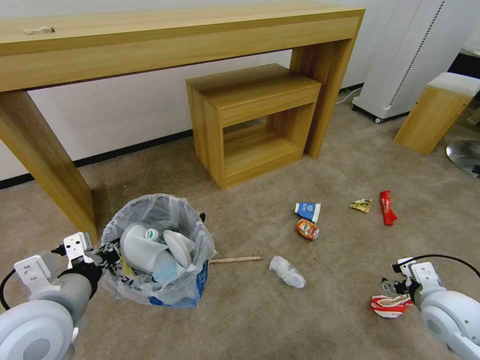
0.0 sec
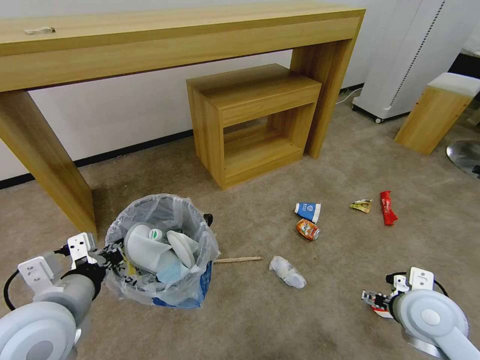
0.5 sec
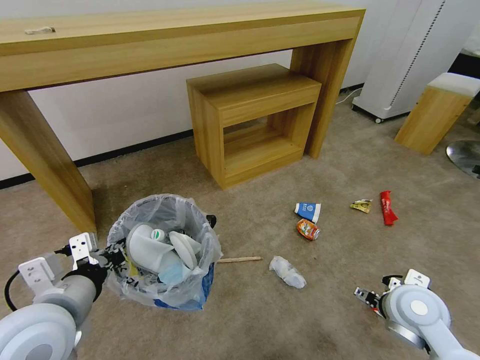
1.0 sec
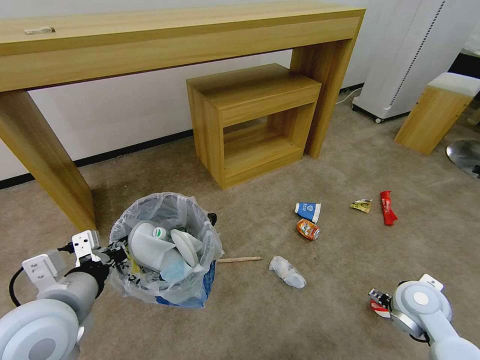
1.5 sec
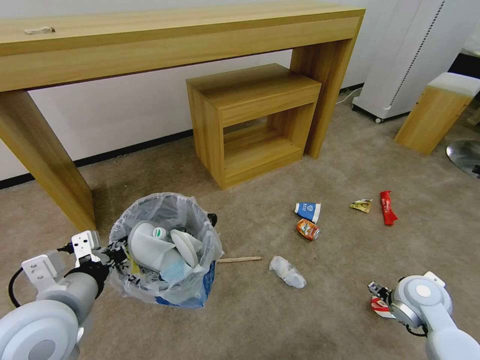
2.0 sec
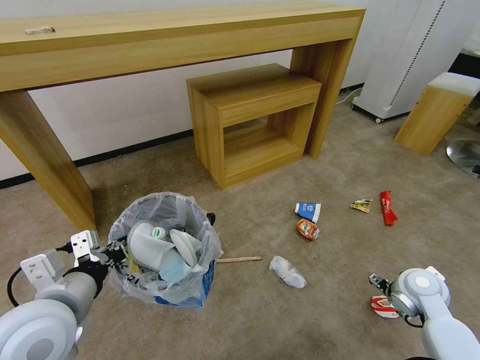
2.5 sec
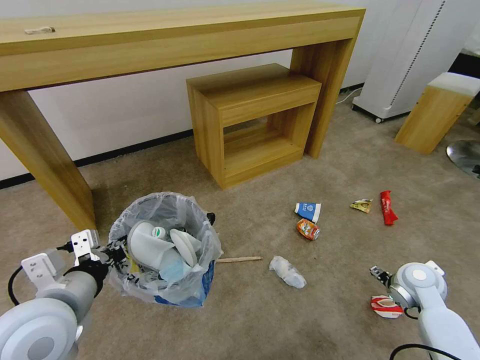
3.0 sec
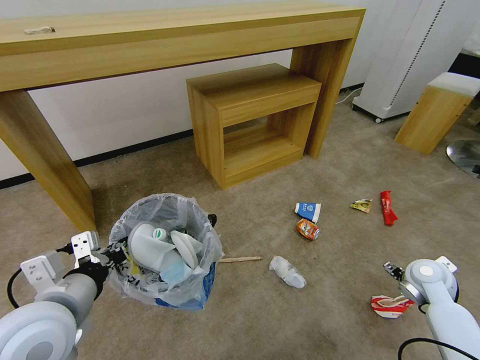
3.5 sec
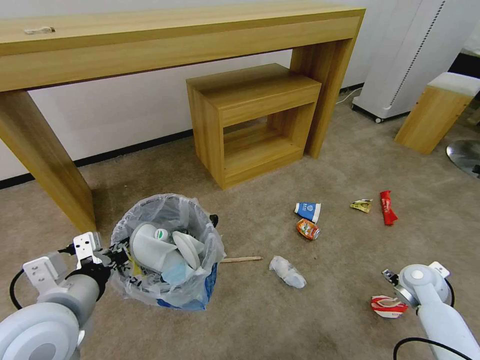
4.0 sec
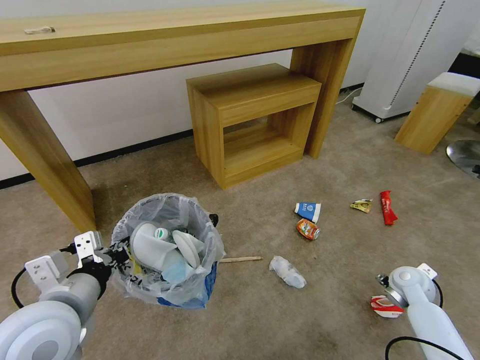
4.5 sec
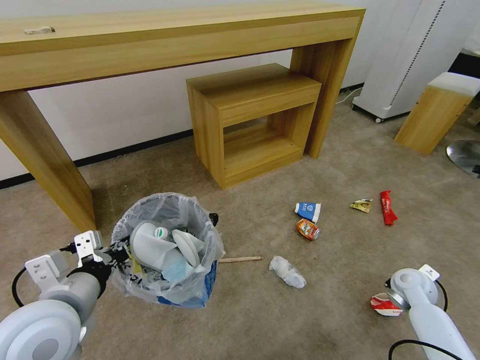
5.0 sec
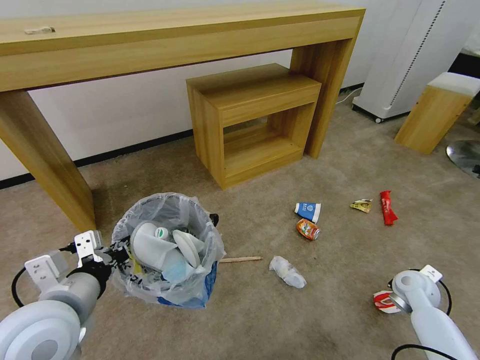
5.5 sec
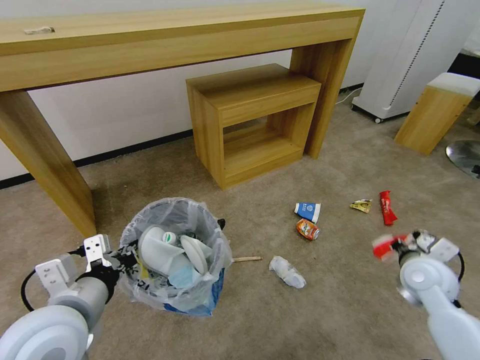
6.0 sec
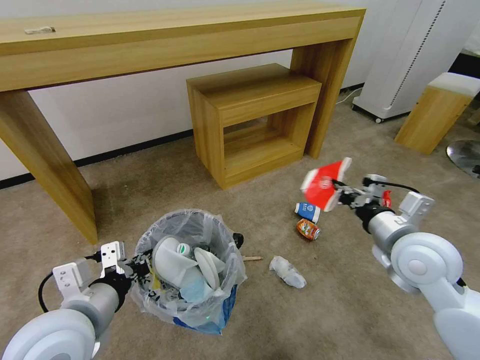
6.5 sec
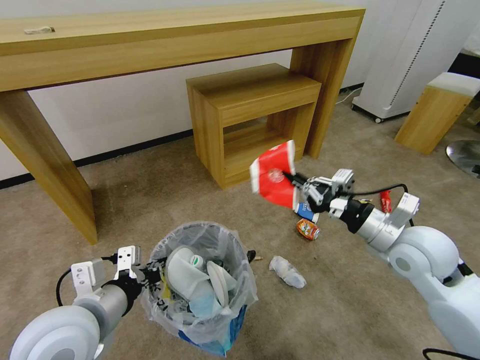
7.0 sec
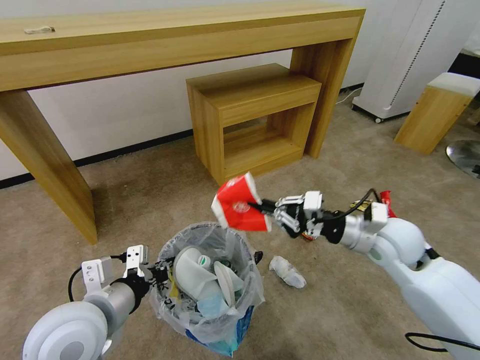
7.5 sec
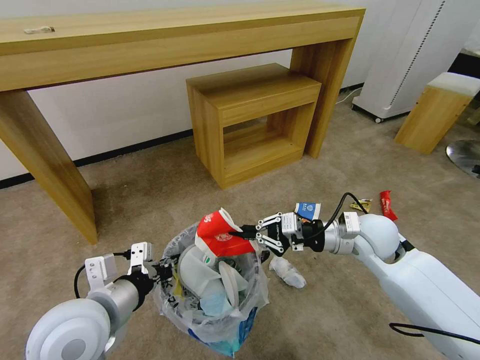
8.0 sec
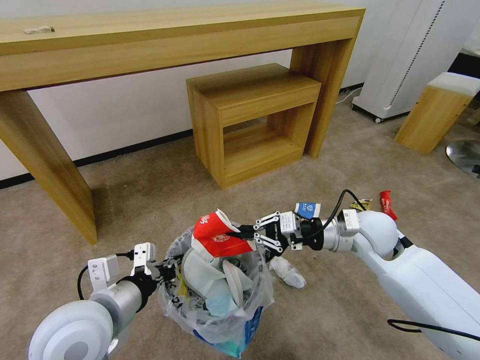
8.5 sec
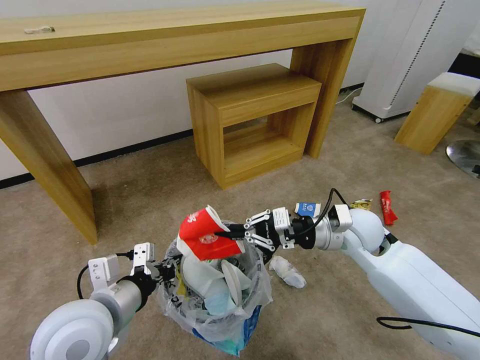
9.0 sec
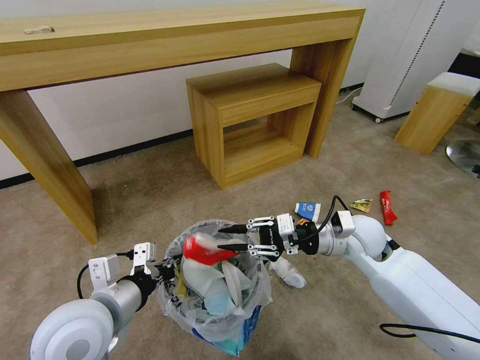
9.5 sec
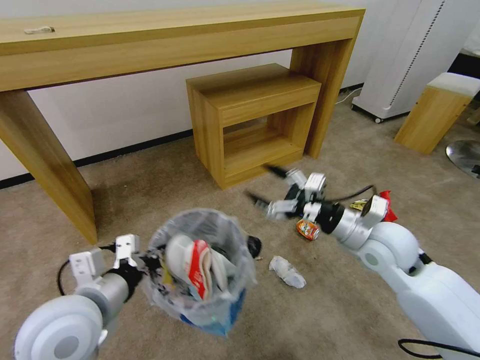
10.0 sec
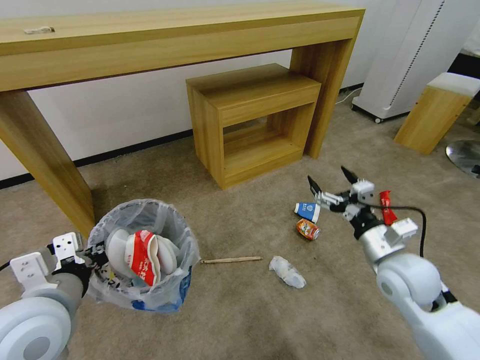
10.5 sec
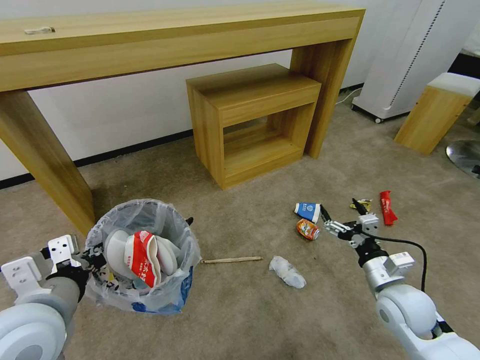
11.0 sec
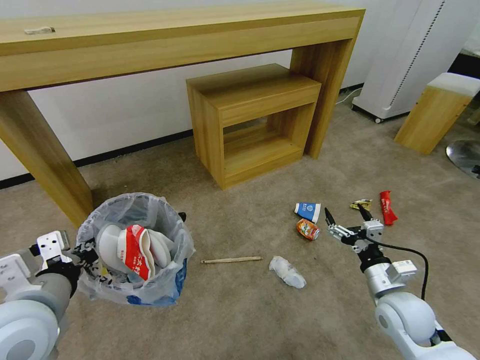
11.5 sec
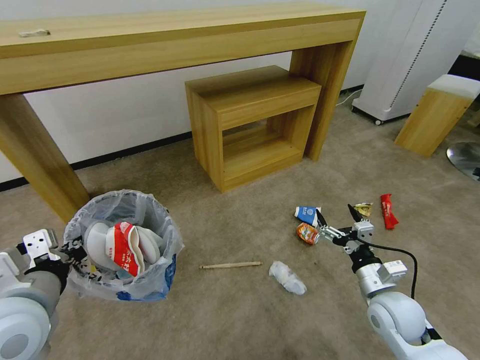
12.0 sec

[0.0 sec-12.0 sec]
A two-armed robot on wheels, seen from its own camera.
Task of the whole recording: Pick up the trash bin and place the garbage on the floor into it.
0.0 sec to 2.0 sec: The right gripper ends up roughly 5 cm from where it was.
2.0 sec to 4.0 sec: The right gripper heads to the right and forward, covering roughly 10 cm.
4.0 sec to 6.0 sec: The right gripper heads upward and to the left, covering about 10 cm, and closes.
6.0 sec to 8.0 sec: The right gripper moves to the left, upward and forward, about 15 cm.
8.0 sec to 10.0 sec: The right gripper opens.
10.0 sec to 12.0 sec: The right gripper heads downward and backward, covering some 15 cm. Meanwhile the left gripper shifts some 5 cm to the left.

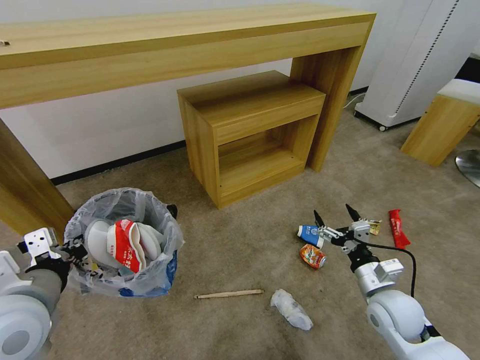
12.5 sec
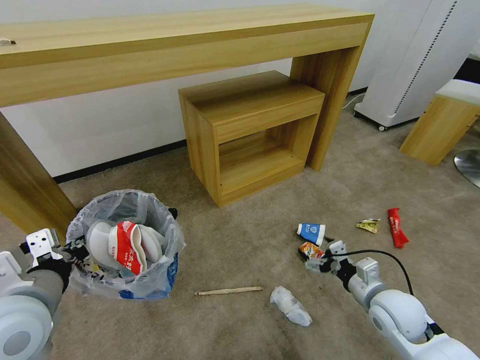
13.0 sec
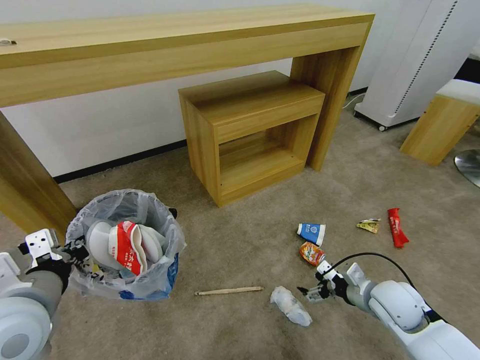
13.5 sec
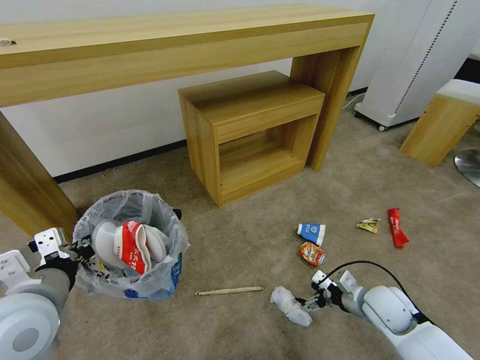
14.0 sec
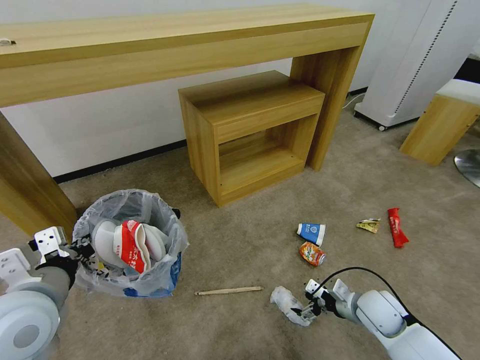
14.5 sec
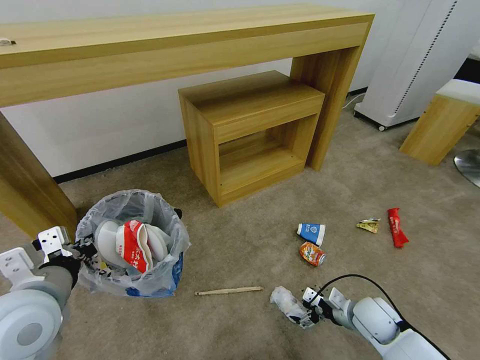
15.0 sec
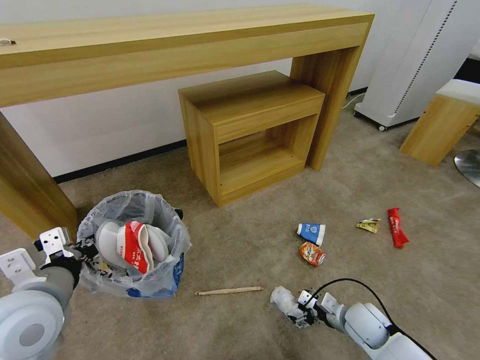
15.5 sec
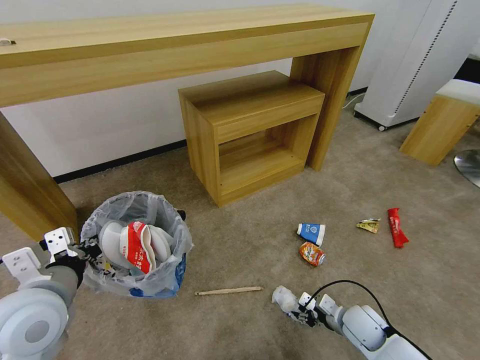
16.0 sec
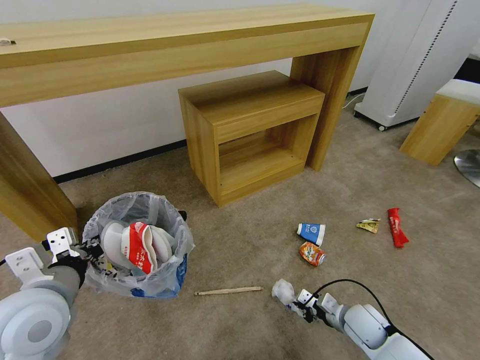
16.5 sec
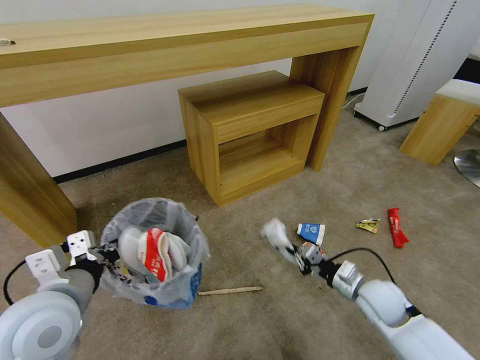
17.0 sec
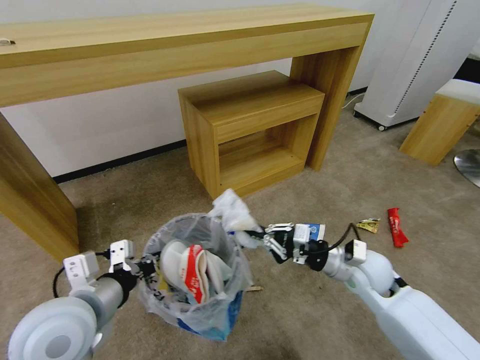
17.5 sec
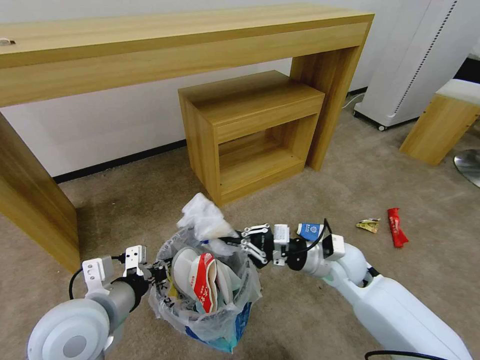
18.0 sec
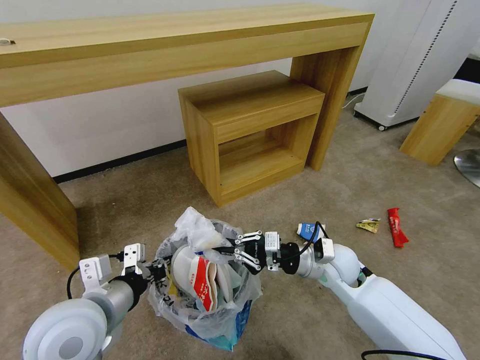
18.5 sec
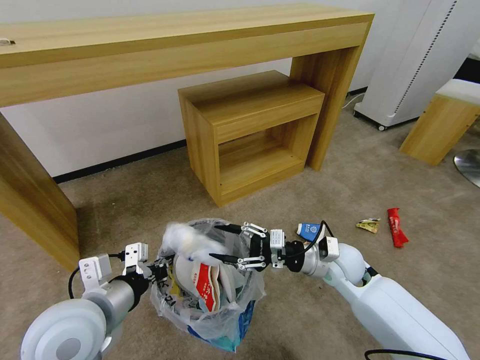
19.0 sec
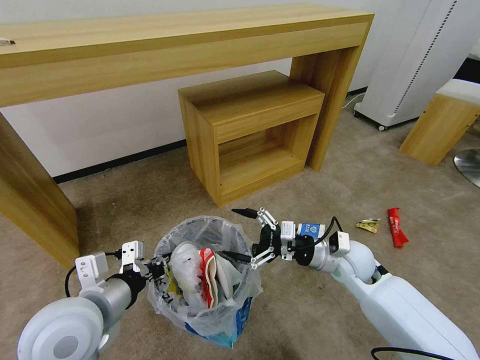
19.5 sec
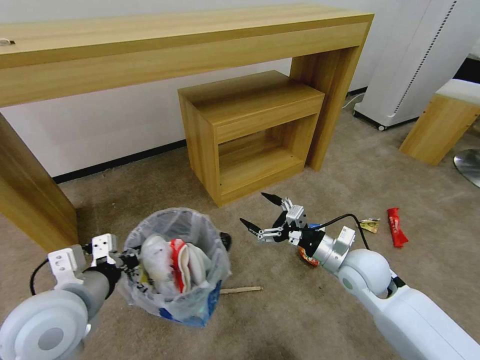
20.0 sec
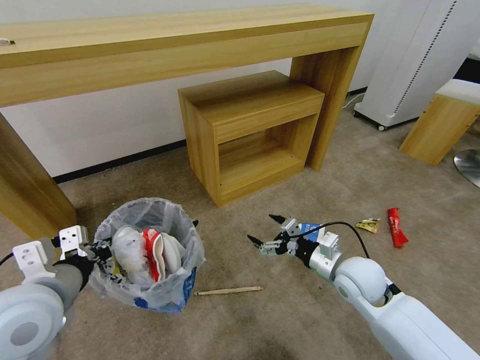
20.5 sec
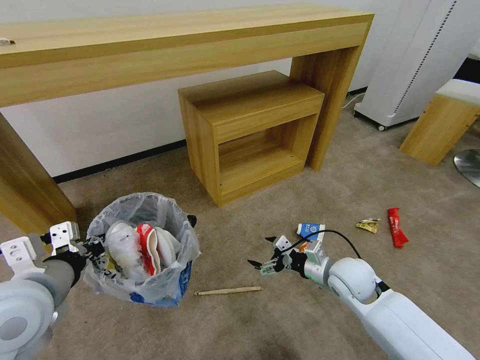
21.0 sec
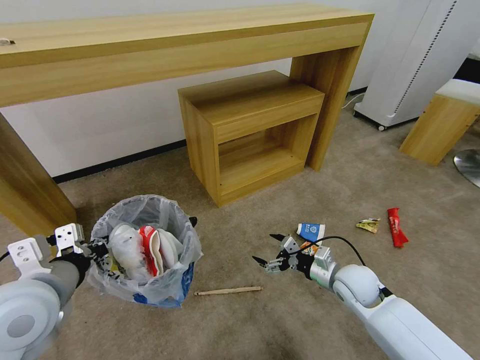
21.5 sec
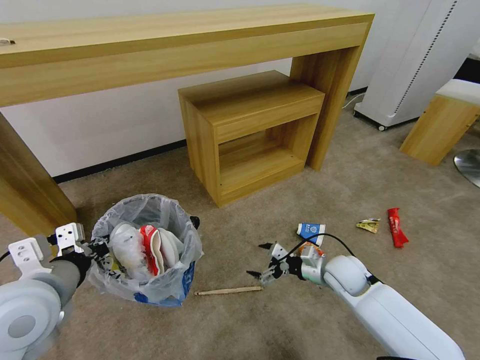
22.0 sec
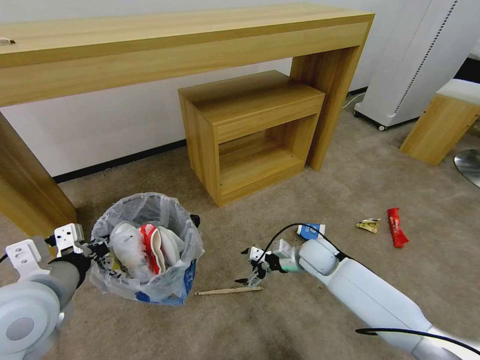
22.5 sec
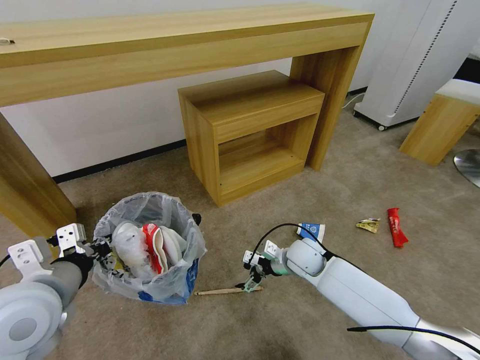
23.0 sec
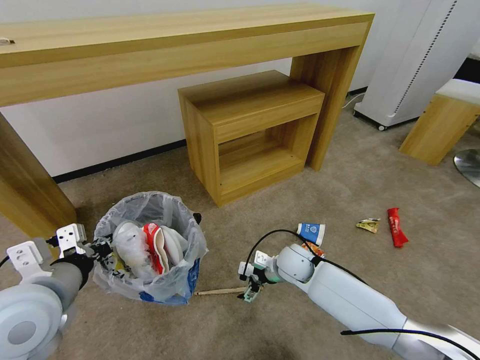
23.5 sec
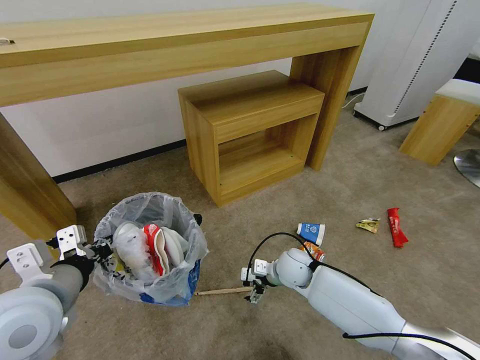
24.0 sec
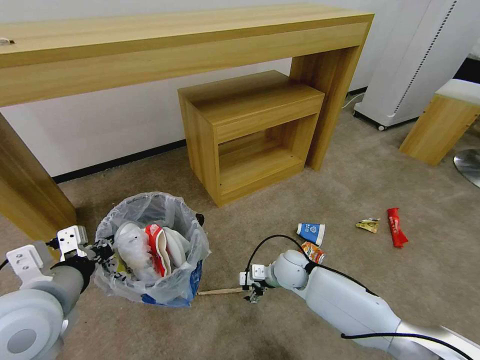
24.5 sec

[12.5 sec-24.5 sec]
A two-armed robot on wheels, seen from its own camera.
Task of the whole recording: Pick up the trash bin and place the garbage on the floor into it.
12.5 sec to 14.5 sec: The right gripper heads downward, covering approximately 5 cm.
14.5 sec to 16.5 sec: The right gripper shifts about 5 cm downward, and closes its fingers.
16.5 sec to 18.5 sec: The left gripper shifts some 5 cm to the right; the right gripper goes about 20 cm upward, to the left and forward.
18.5 sec to 20.5 sec: The left gripper is displaced to the left by approximately 5 cm, while the right gripper shifts by approximately 5 cm, and opens up.
20.5 sec to 22.5 sec: The right gripper heads forward and downward, covering about 10 cm.
22.5 sec to 24.5 sec: The right gripper moves to the left, roughly 5 cm.

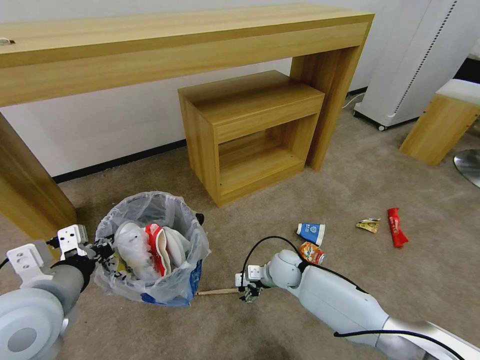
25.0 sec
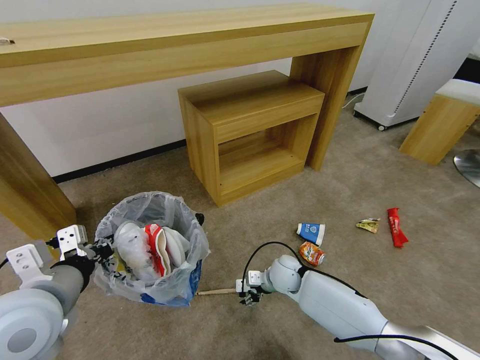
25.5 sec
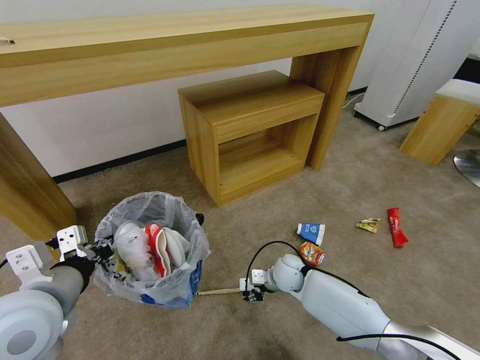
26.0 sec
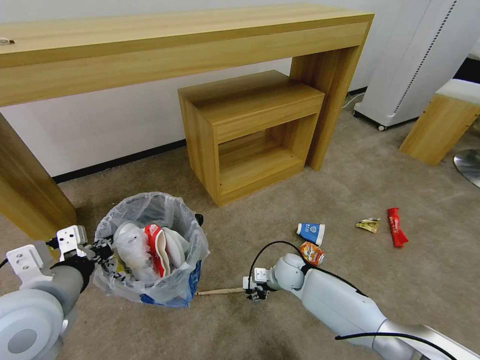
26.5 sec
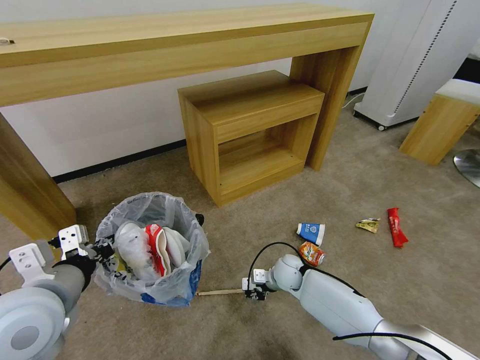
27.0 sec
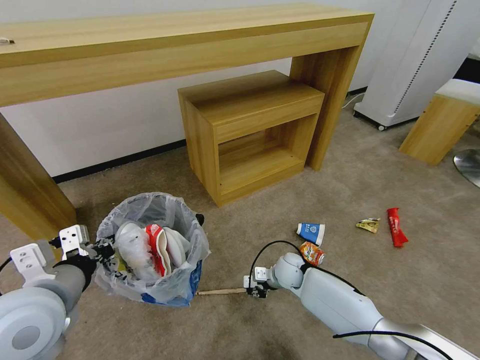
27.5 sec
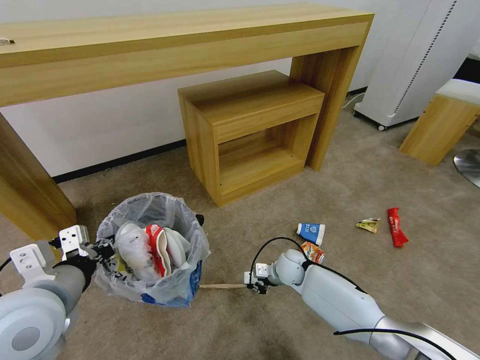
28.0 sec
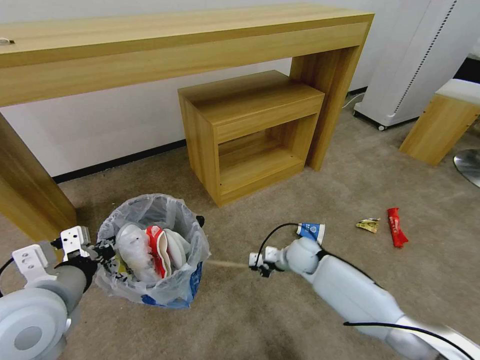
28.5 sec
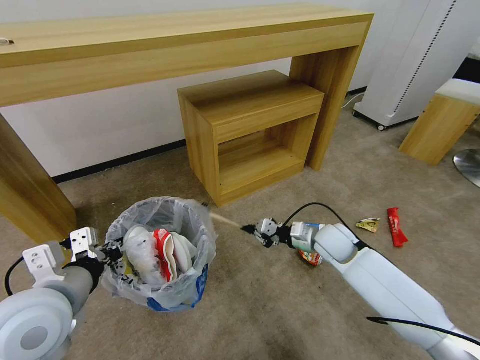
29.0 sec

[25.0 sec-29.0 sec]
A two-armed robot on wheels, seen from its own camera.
Task of the whole recording: Pick up the trash bin and place the garbage on the floor into it.
25.0 sec to 27.0 sec: The right gripper closes up.
27.0 sec to 29.0 sec: The right gripper moves upward and to the right, about 15 cm.
